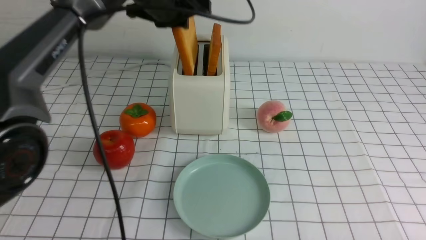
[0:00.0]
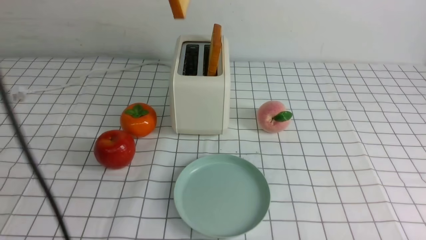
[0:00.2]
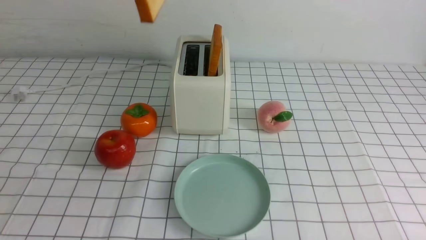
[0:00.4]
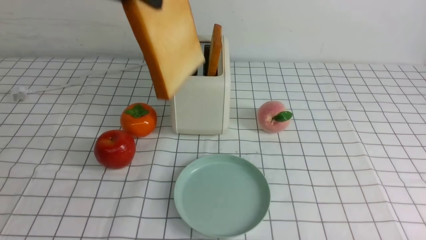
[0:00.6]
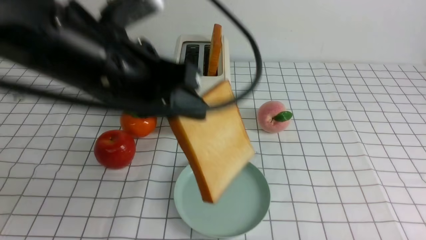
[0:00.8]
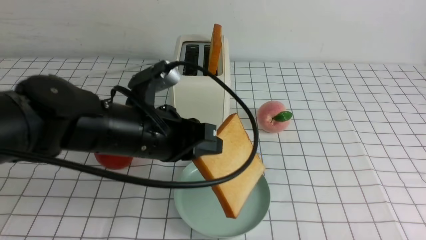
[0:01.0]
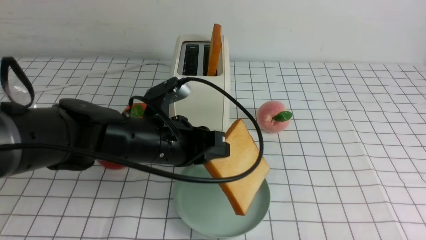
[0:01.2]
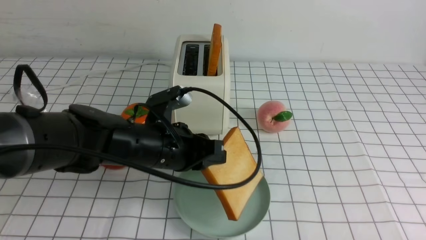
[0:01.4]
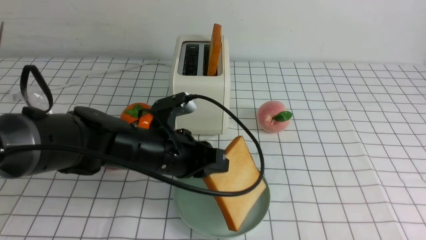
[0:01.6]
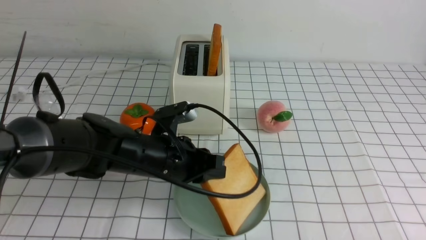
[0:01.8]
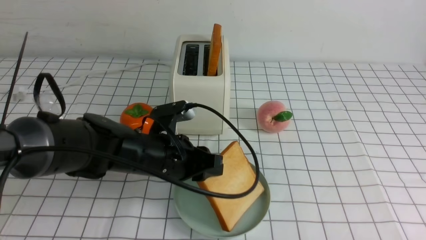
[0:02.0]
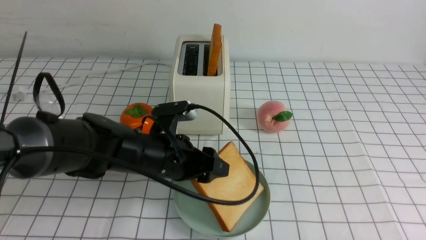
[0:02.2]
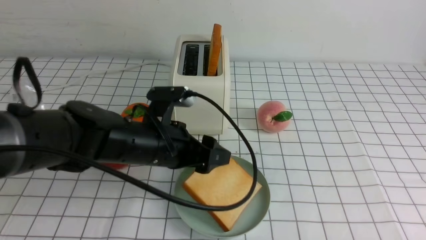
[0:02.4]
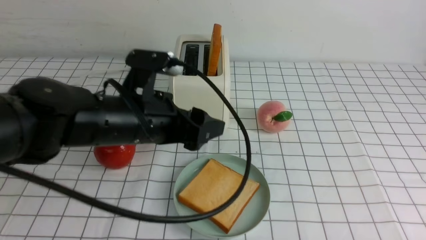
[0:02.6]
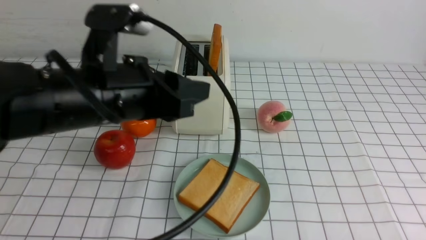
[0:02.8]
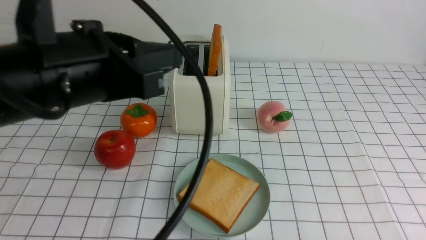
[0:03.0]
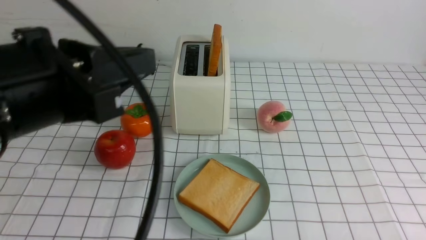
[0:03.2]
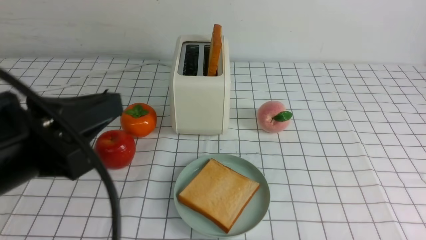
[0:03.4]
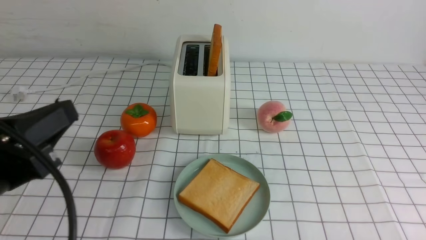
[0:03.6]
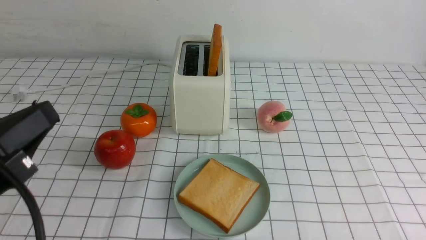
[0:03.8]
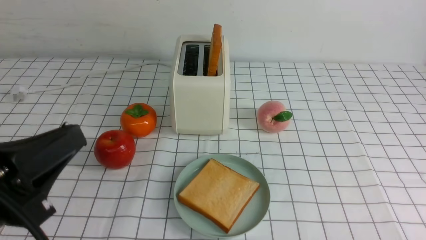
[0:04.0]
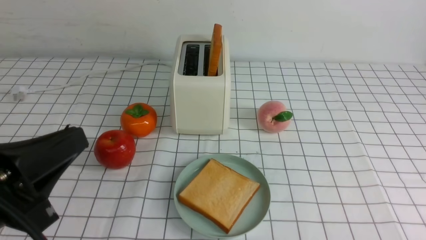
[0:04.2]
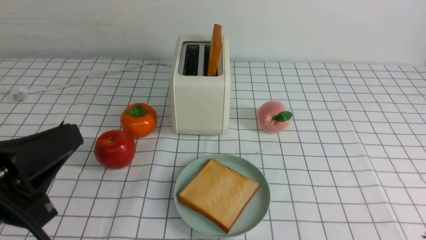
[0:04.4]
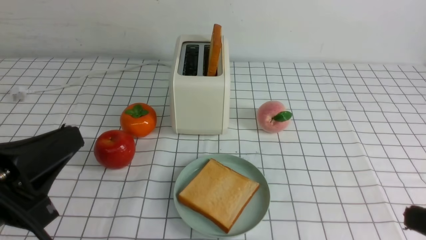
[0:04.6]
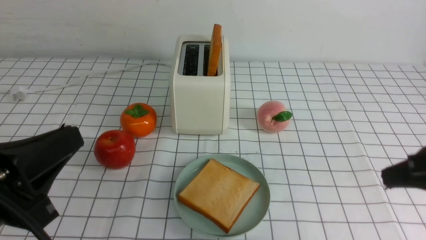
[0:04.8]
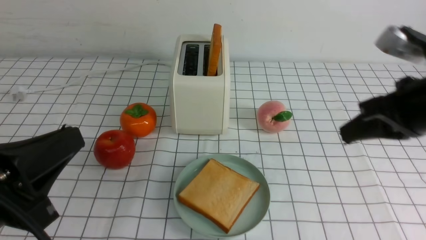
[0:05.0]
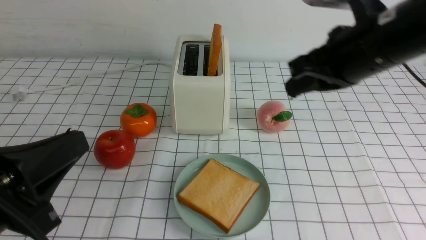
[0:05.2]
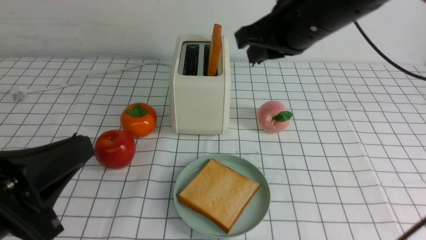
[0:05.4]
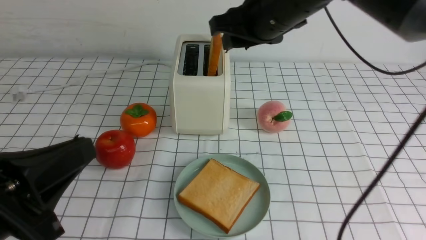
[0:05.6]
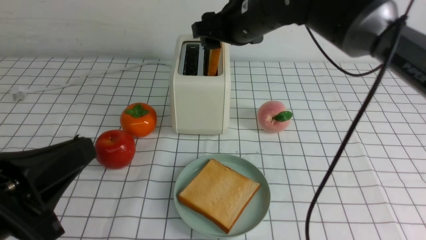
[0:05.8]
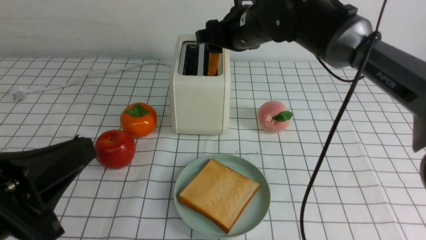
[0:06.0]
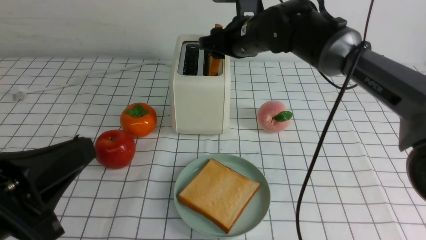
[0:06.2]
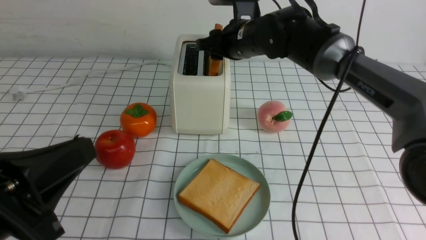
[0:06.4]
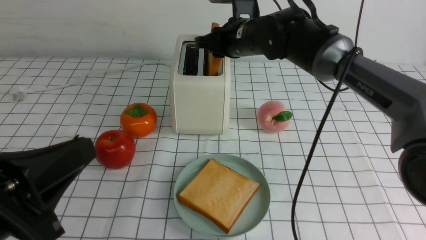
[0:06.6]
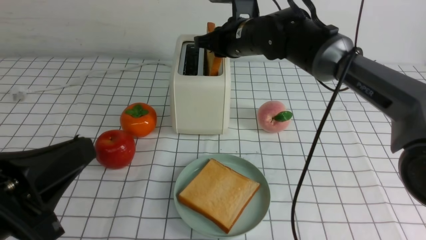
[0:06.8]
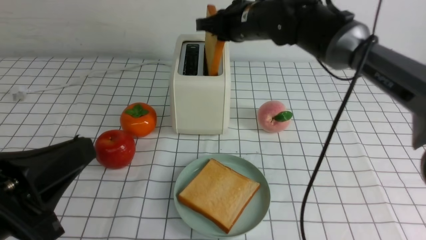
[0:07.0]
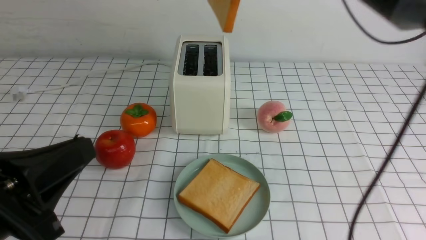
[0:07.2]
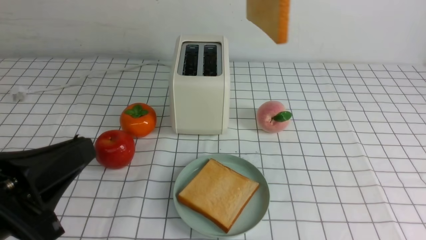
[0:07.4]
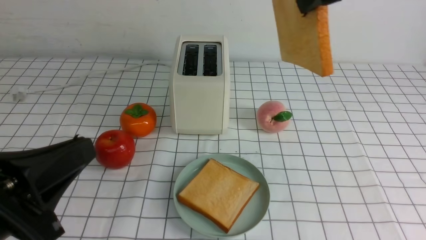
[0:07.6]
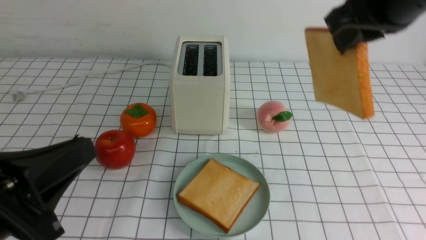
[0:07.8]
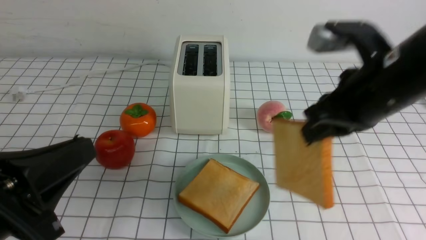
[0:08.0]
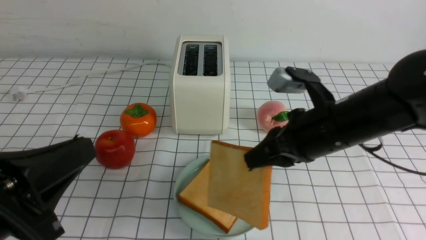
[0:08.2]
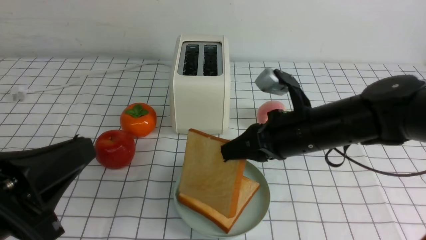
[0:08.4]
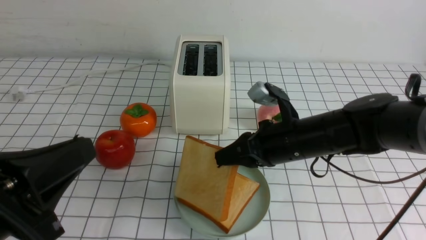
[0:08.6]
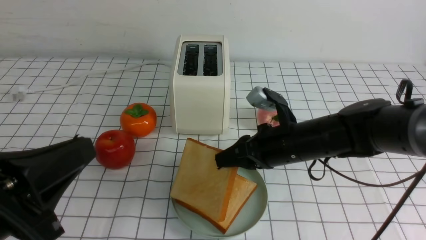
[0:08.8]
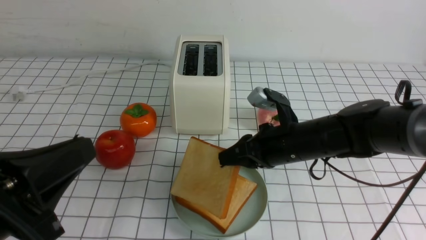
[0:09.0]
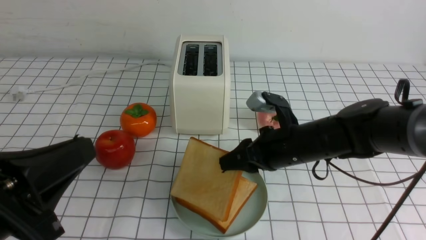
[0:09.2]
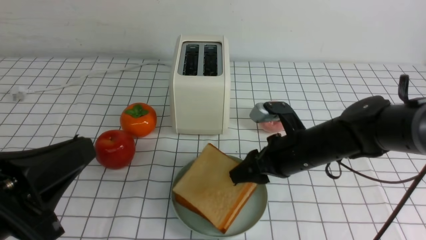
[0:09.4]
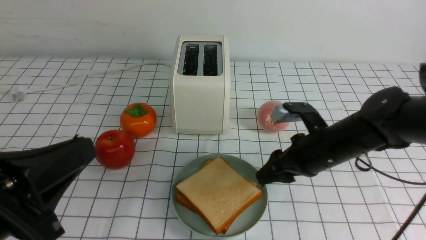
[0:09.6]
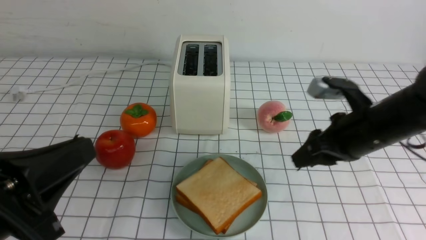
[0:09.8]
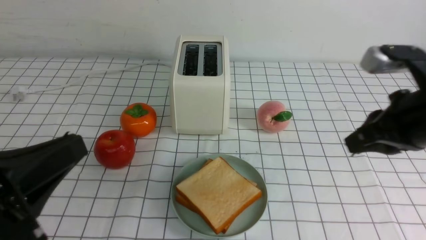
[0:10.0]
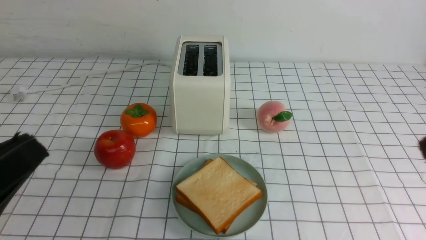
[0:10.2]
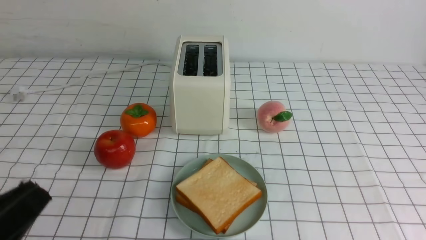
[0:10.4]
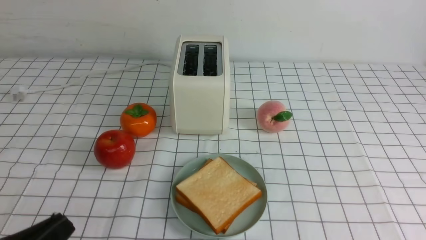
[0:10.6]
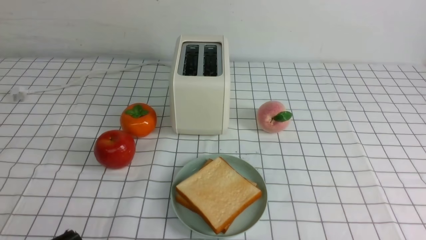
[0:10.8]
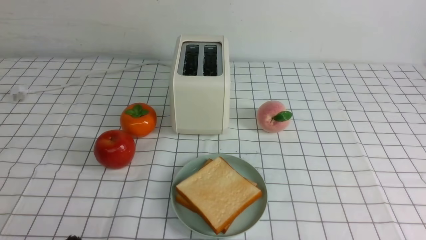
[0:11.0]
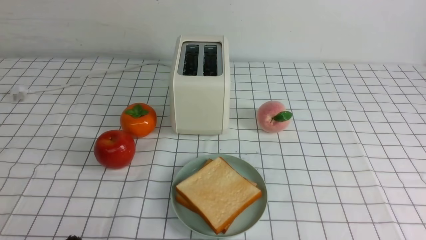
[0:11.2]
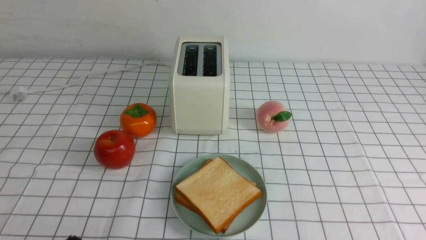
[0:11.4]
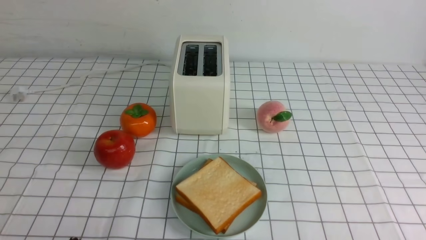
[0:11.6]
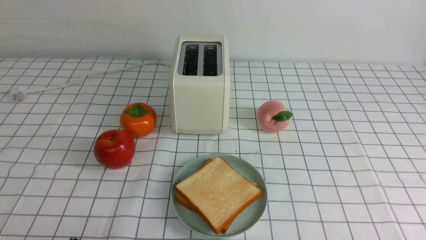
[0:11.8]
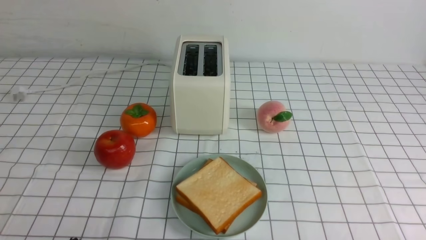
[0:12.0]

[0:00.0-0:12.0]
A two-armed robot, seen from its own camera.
Task of the whole recording: take toasted bread from bread machine on white checkered table place on plate.
Step, 0:00.2 to 0:02.6: use the left arm to put a slice of bread into the empty plate.
Step, 0:02.8 to 0:07.0: use the right arm to take out a slice of bread.
Step, 0:07.2 to 0:09.6: use the right arm to put a slice of bread into the plate.
0:00.0 to 0:01.6: The left gripper shifts about 25 cm downward and backward.
0:01.6 to 0:03.0: The left gripper heads upward and backward, covering roughly 20 cm, and opens, then closes again.
0:03.0 to 0:04.4: The left gripper shifts approximately 15 cm backward, downward and to the left, while the right gripper is displaced upward by roughly 10 cm.
0:04.4 to 0:06.0: The right gripper shifts about 40 cm forward and to the left, and opens.
0:06.0 to 0:07.6: The right gripper is displaced backward, upward and to the right by some 20 cm, and closes up.
0:07.6 to 0:09.0: The right gripper heads downward, covering approximately 25 cm.
0:09.0 to 0:10.4: The left gripper moves about 5 cm. The right gripper shifts approximately 35 cm backward, to the right and upward, and closes its fingers.
0:10.4 to 0:12.0: The left gripper goes about 5 cm downward.

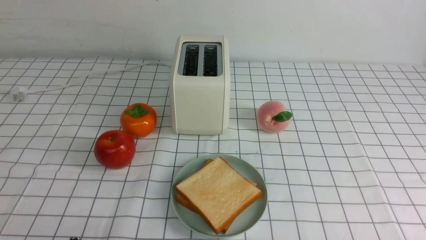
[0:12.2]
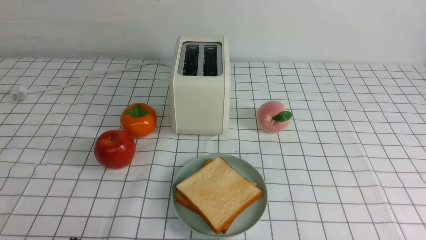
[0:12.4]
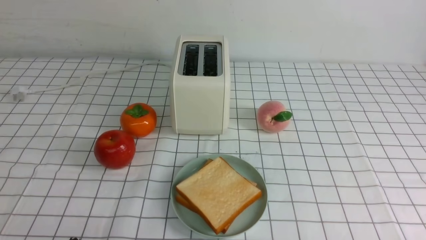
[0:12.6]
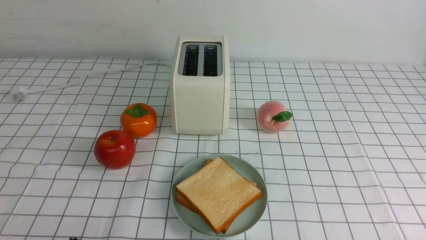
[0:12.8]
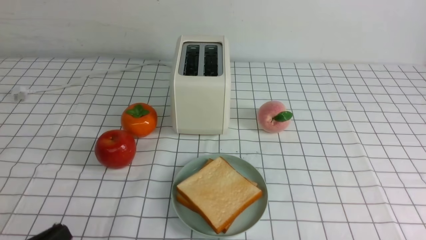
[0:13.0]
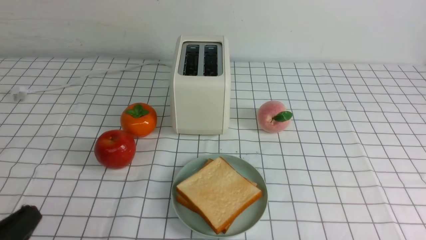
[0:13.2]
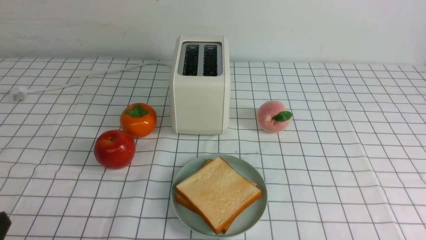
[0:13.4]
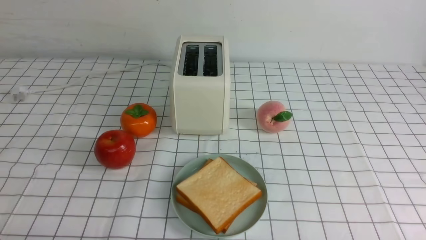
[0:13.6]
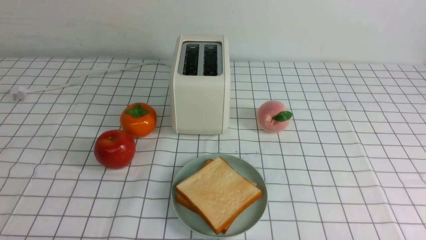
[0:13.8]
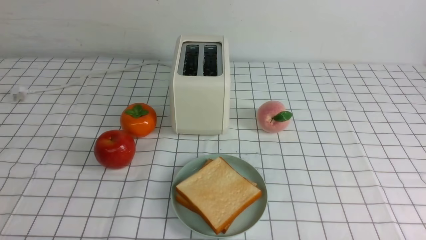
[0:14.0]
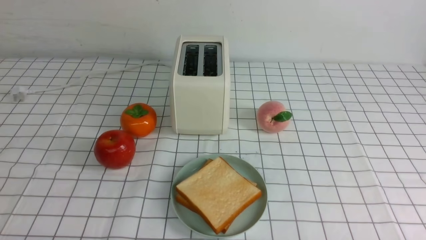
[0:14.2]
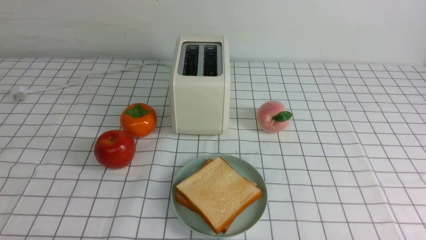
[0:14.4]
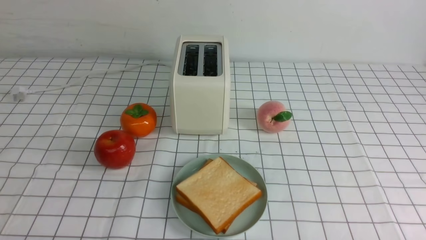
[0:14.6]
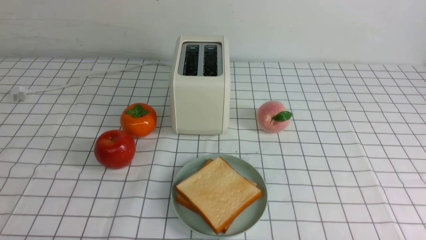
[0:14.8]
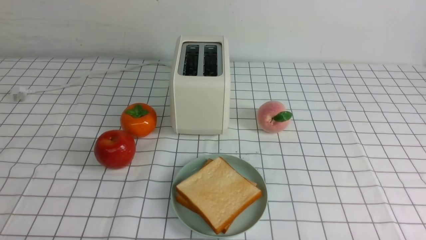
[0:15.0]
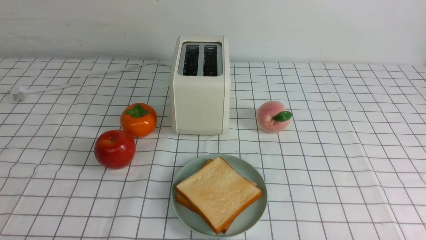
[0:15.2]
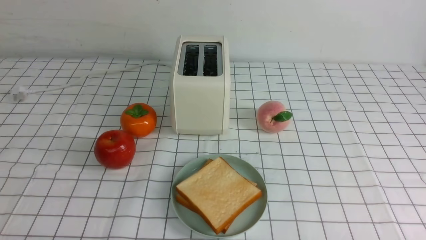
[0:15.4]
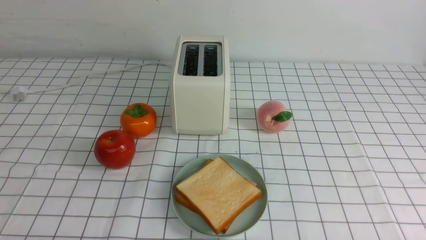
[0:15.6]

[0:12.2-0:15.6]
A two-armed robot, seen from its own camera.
Task of the whole recording: take toasted bread from bread machine on white checkered table place on plate.
0:13.8 to 0:15.6: Neither gripper changes place.
